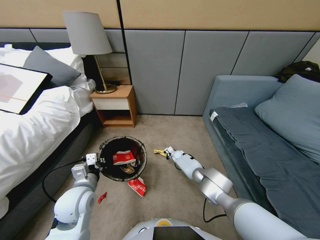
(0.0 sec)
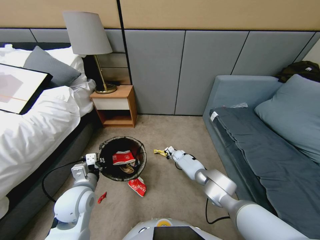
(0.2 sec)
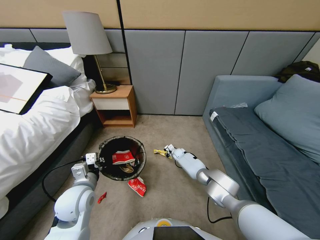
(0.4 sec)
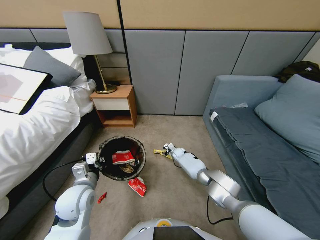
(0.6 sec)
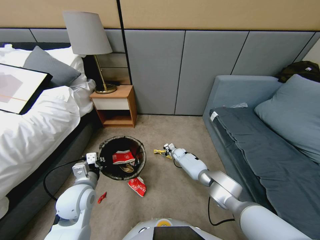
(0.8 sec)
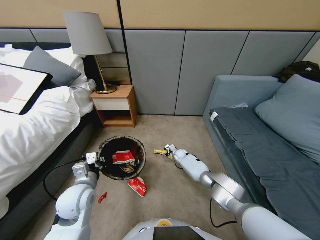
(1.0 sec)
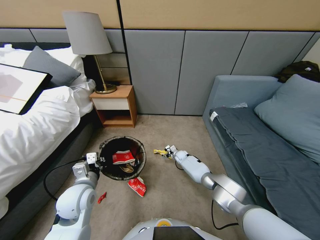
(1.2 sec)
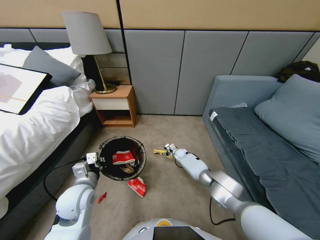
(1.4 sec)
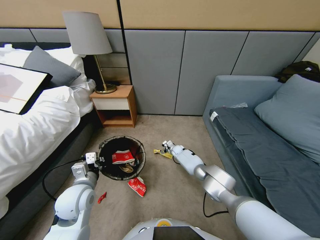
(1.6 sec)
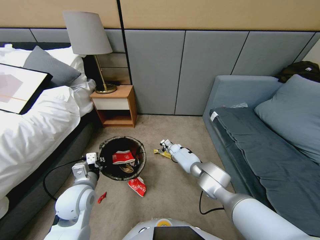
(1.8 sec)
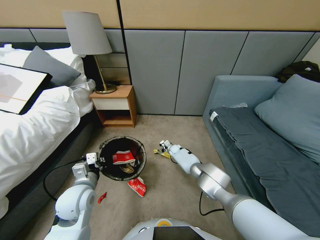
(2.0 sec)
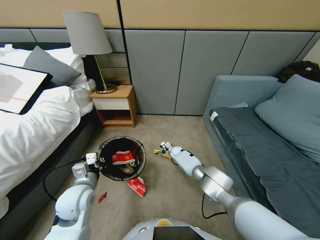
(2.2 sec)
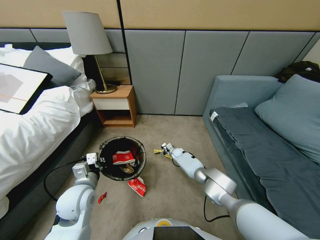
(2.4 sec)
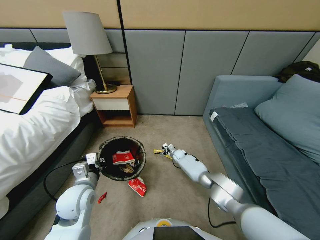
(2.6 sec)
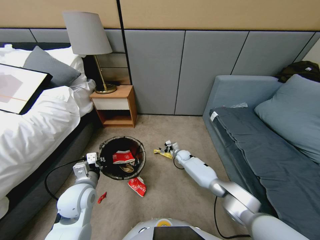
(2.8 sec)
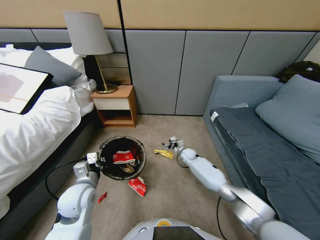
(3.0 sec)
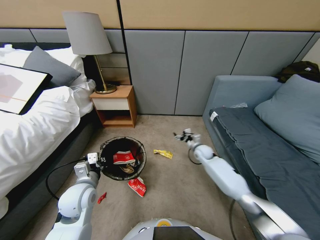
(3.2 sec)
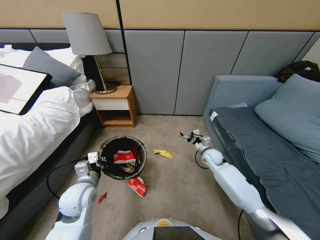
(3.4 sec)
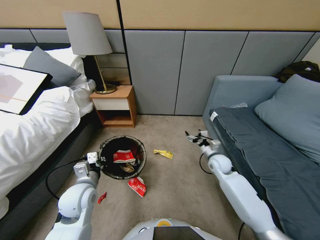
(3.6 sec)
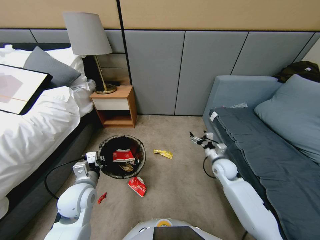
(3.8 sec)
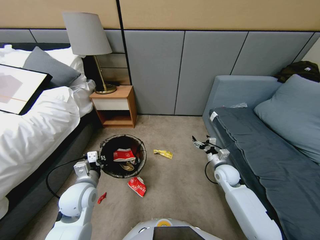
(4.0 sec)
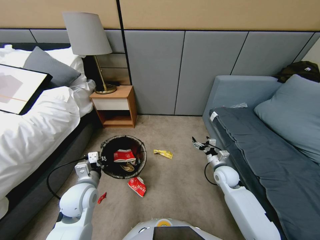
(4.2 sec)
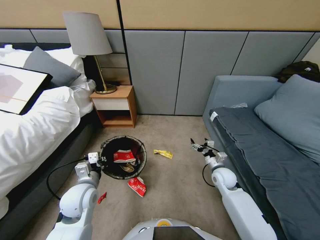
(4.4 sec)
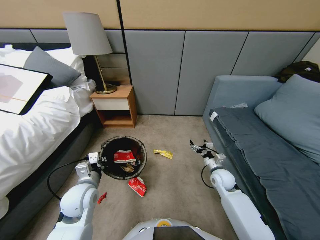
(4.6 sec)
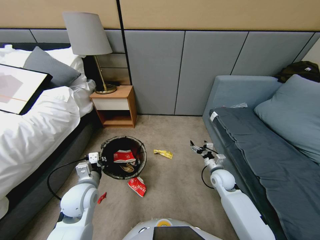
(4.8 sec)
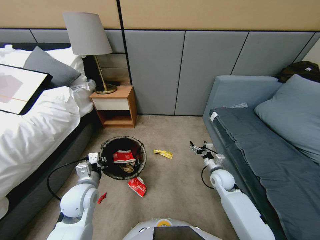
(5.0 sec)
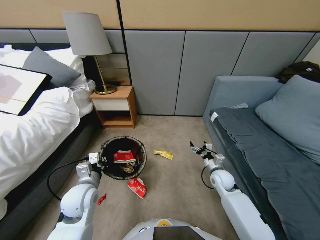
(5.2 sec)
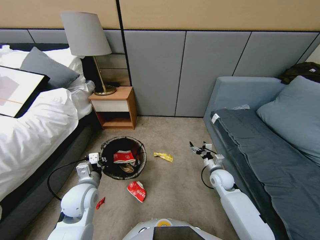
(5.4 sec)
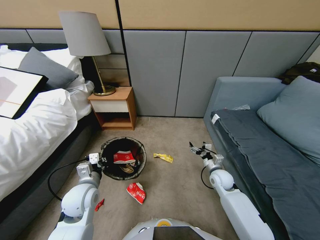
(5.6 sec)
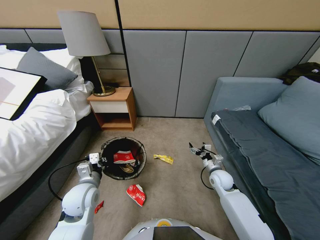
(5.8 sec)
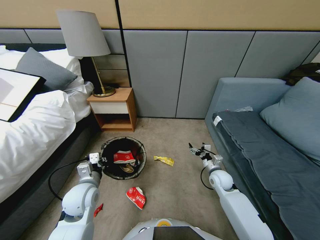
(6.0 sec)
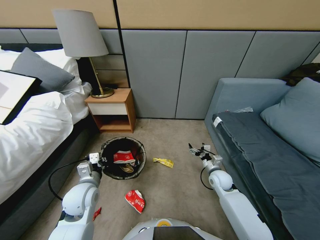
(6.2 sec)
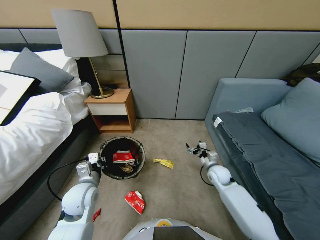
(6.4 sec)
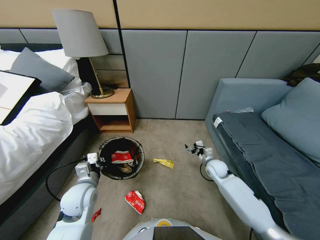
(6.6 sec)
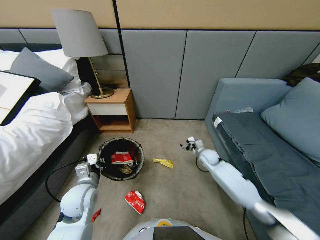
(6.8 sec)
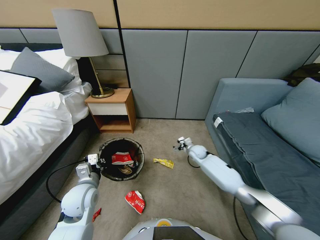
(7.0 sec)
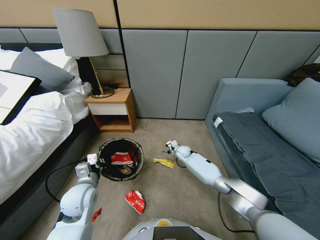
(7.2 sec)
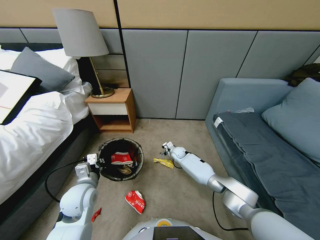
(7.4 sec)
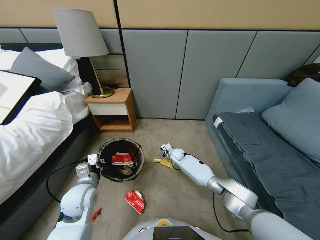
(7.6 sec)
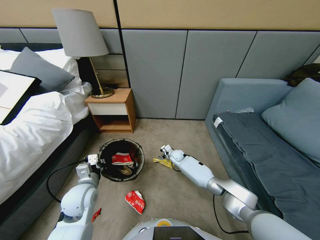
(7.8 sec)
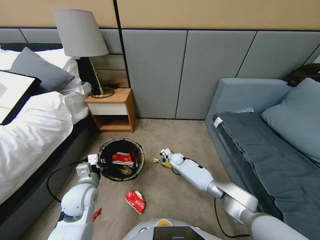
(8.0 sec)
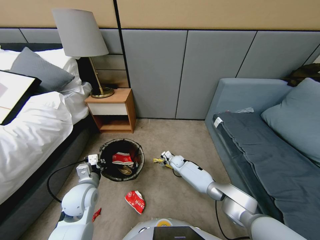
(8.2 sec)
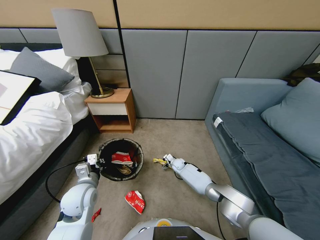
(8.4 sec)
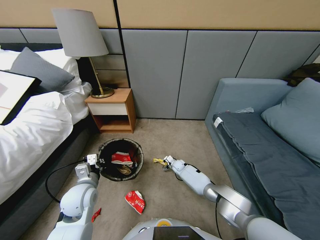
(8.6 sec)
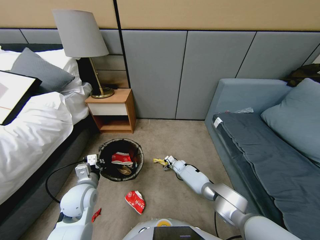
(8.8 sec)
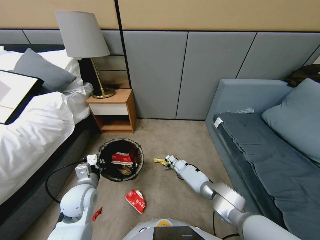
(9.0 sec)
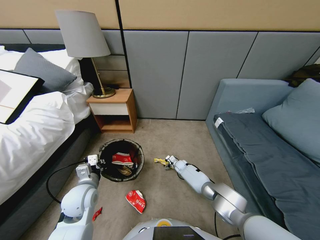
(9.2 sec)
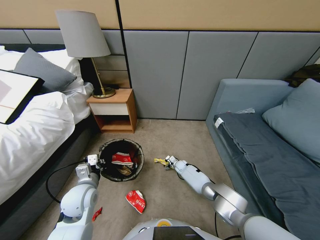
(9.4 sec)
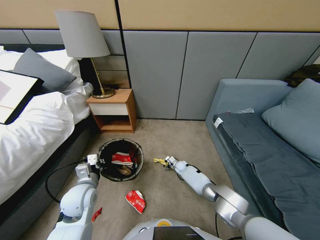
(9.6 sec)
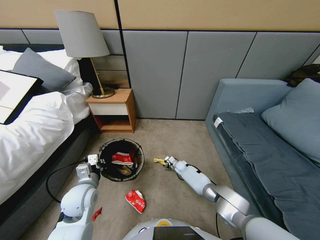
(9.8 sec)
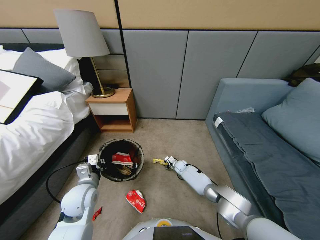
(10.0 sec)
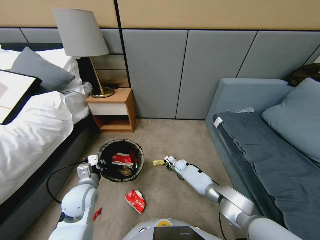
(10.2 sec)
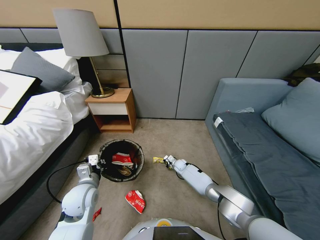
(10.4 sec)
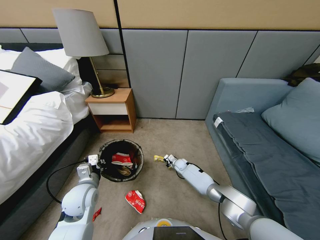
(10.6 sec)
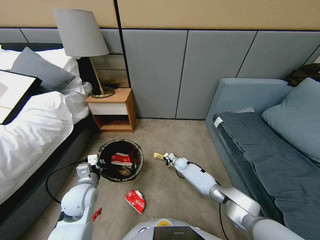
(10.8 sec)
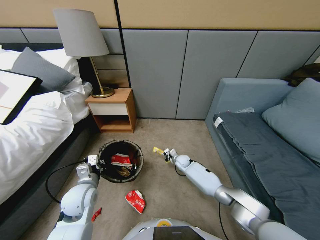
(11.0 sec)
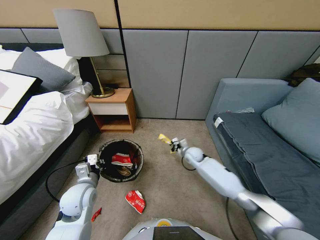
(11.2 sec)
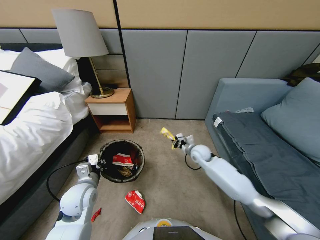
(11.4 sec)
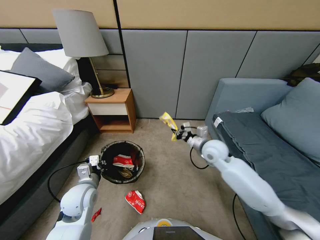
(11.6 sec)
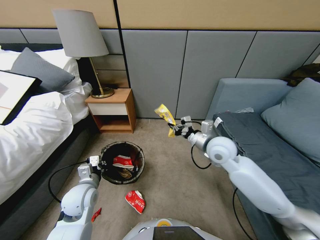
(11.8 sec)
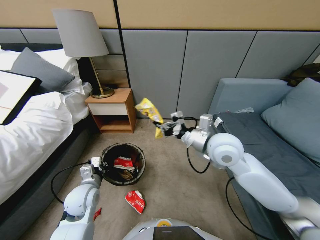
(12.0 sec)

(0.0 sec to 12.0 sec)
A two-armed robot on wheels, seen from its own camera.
Task of the whole recording: Pick up the trash bin, then pick up the garbage from the floor and place it into the trash bin.
0.0 sec - 1.6 sec: The right gripper moves roughly 5 cm, and opens up.
1.6 sec - 3.0 sec: The right gripper is displaced to the right, upward and backward by approximately 20 cm.
3.0 sec - 4.4 sec: The right gripper moves backward, some 15 cm.
4.4 sec - 6.0 sec: The grippers stay close to where they were, moving slightly.
6.0 sec - 7.6 sec: The right gripper travels forward, to the left and downward by some 25 cm.
7.6 sec - 9.0 sec: The right gripper travels downward by approximately 10 cm.
9.0 sec - 10.4 sec: The right gripper closes.
10.4 sec - 12.0 sec: The right gripper is displaced upward by approximately 40 cm.

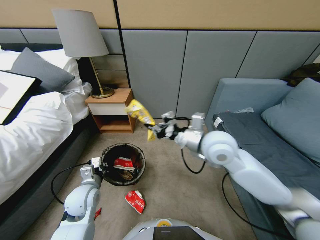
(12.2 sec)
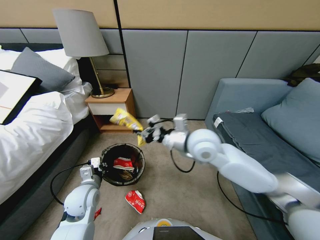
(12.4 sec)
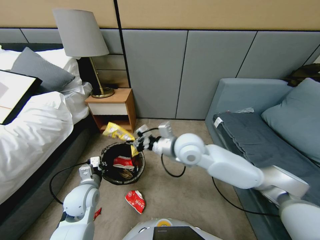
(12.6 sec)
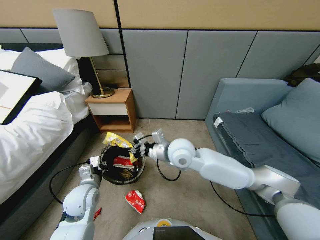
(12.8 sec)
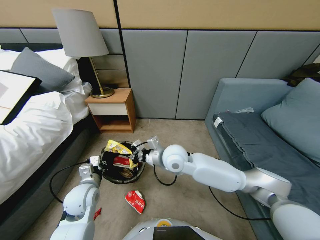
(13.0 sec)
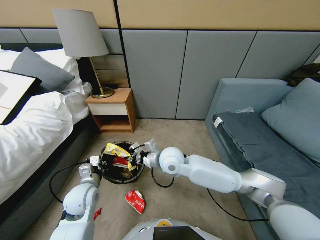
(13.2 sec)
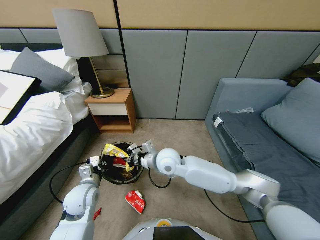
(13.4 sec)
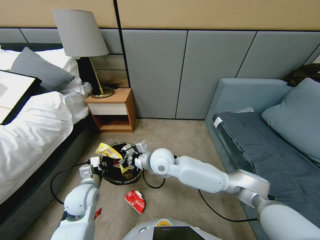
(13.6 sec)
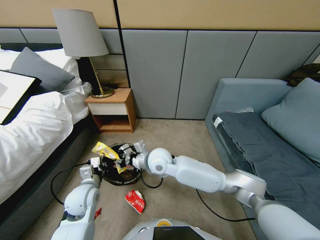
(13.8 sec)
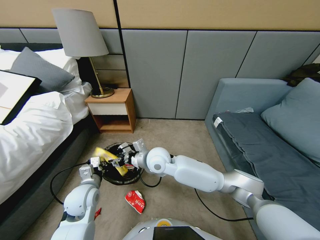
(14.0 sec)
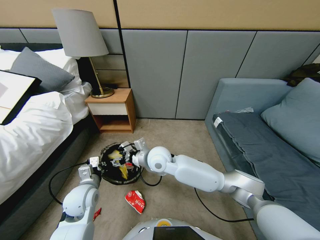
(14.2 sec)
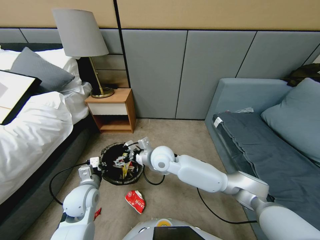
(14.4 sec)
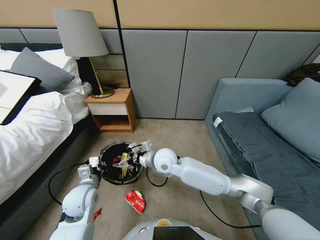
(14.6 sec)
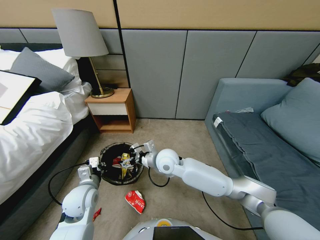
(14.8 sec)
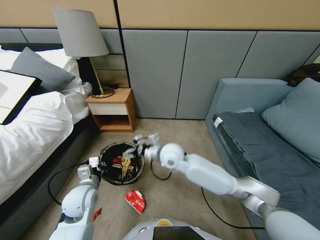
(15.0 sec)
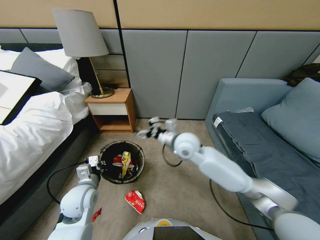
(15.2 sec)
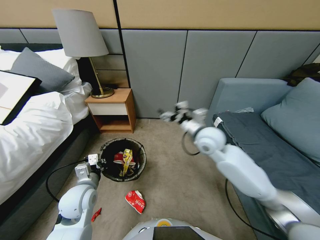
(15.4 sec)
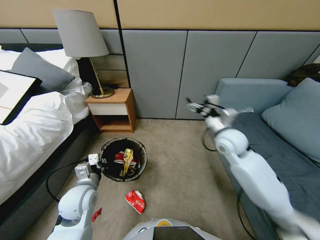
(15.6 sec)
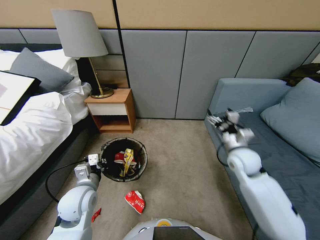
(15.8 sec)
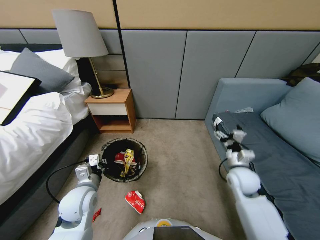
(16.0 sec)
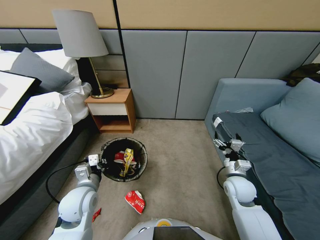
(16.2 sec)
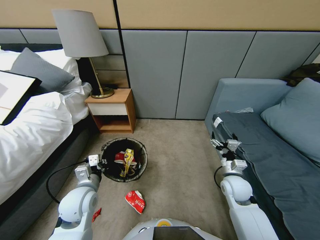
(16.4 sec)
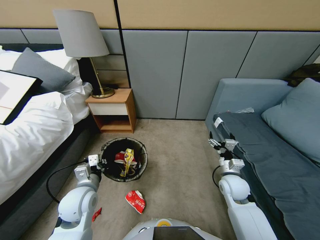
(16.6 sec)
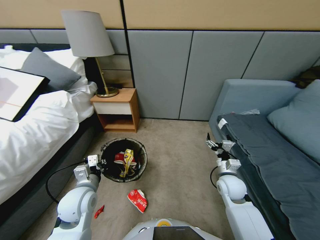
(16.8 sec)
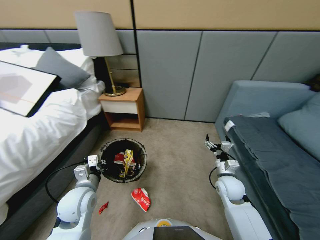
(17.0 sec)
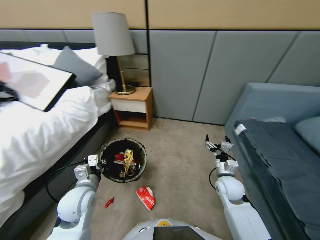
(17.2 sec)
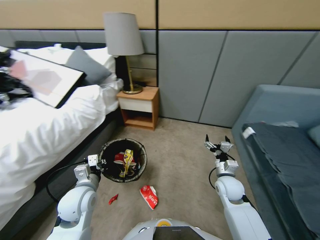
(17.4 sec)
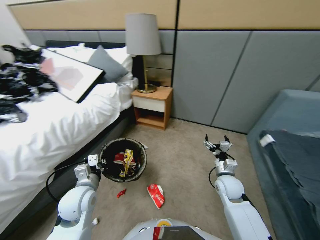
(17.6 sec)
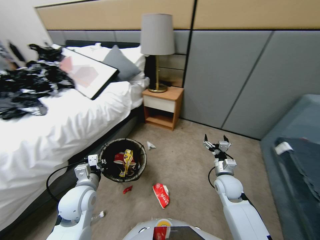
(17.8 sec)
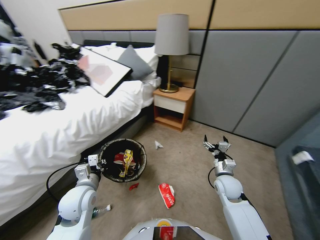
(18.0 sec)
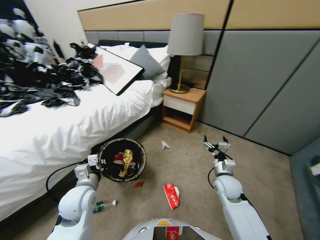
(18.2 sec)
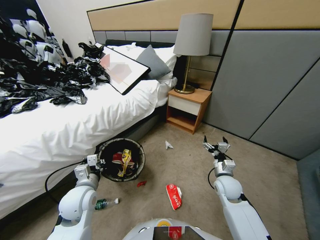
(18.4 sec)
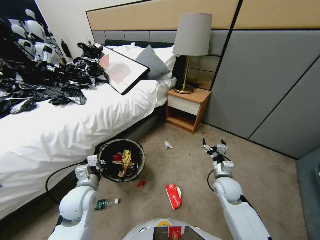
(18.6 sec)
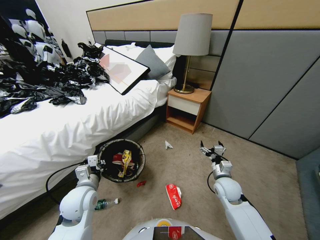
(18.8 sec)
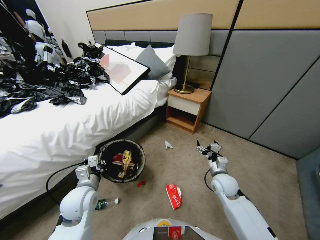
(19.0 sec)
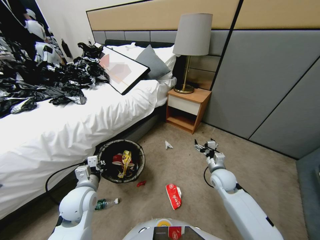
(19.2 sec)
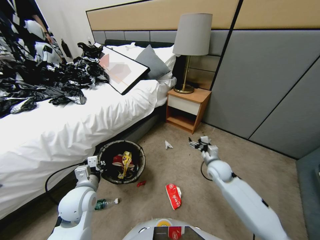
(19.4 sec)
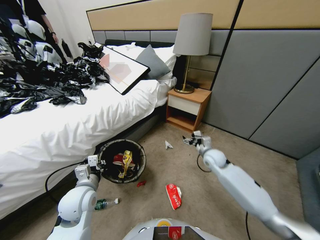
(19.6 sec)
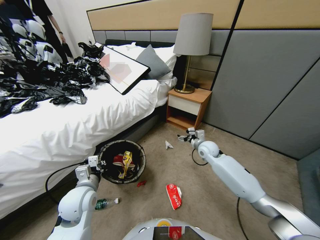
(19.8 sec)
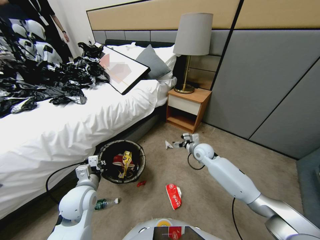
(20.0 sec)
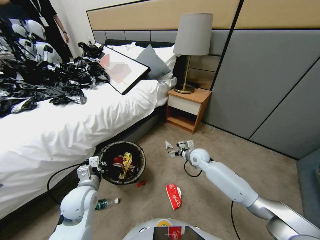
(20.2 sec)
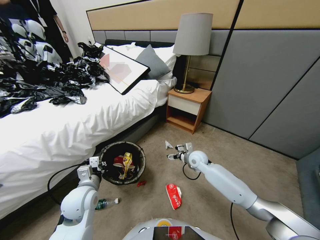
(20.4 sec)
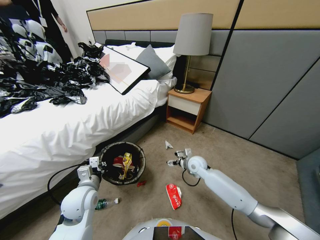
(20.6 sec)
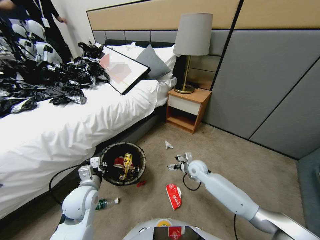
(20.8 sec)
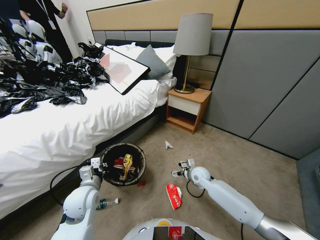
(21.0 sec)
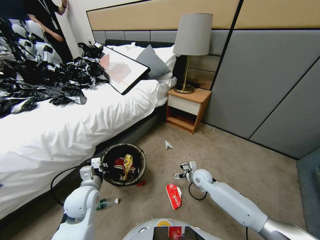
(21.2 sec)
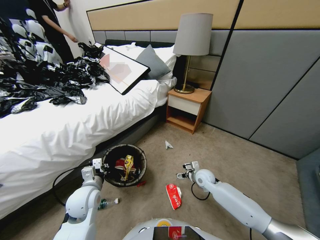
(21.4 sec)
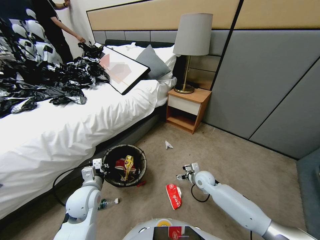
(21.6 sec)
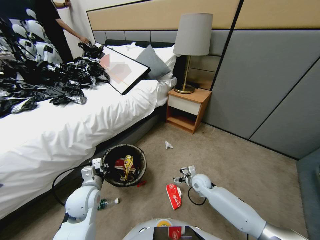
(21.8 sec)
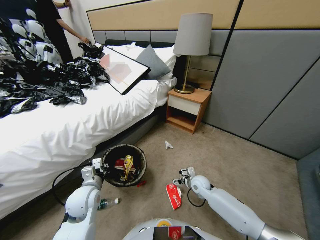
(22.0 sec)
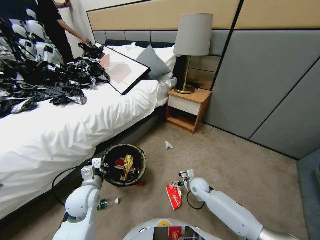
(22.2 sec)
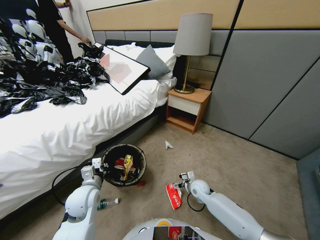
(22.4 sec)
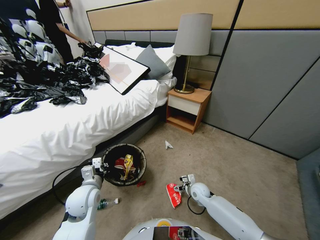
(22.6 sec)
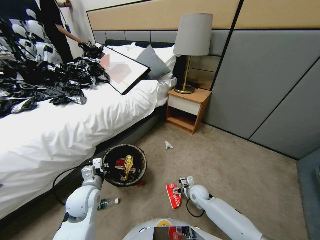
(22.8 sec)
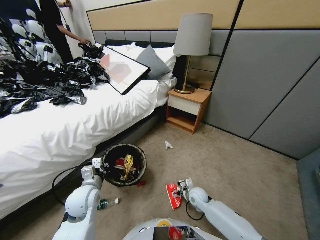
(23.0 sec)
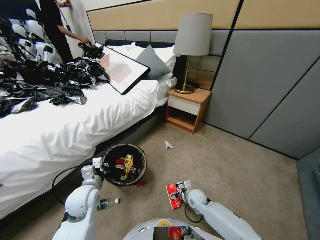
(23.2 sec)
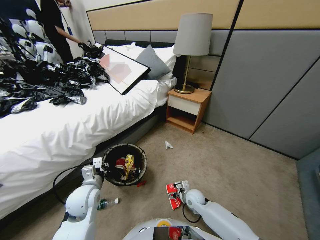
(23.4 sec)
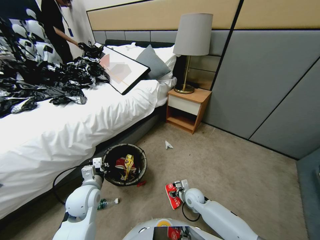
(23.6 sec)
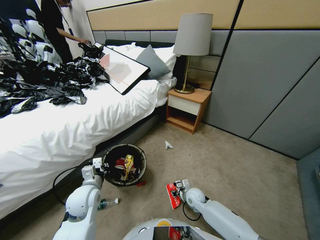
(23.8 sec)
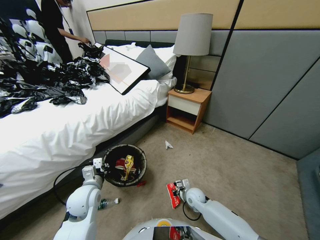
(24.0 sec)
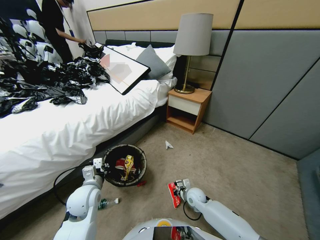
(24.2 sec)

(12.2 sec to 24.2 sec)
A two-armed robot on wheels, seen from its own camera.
Task of the whole recording: Pick up the trash bin, then pick up the garbage from the floor and place it into the trash bin.
12.2 sec - 13.8 sec: The right gripper is displaced to the left and downward by some 20 cm, and opens up.
13.8 sec - 15.2 sec: The right gripper moves to the right and upward, about 15 cm, and opens up.
15.2 sec - 16.6 sec: The right gripper is displaced downward, to the right and backward by roughly 25 cm.
18.2 sec - 19.8 sec: The right gripper moves forward, some 15 cm.
19.8 sec - 21.2 sec: The right gripper heads downward and backward, covering approximately 15 cm.
21.2 sec - 22.6 sec: The right gripper is displaced downward and backward by some 10 cm.
22.6 sec - 24.2 sec: The right gripper closes up.
